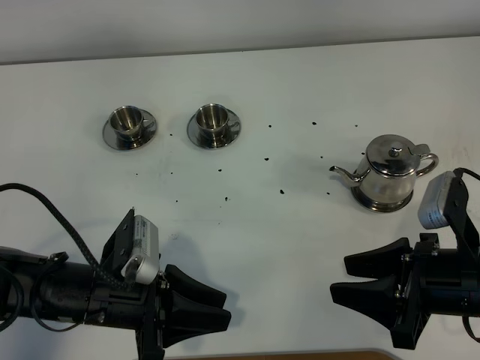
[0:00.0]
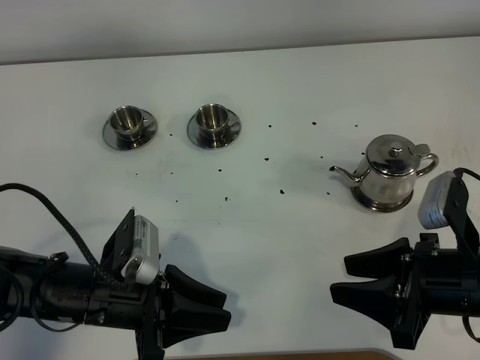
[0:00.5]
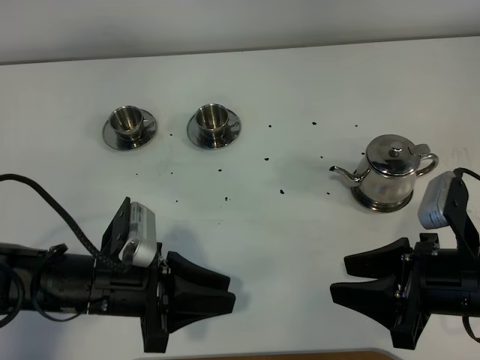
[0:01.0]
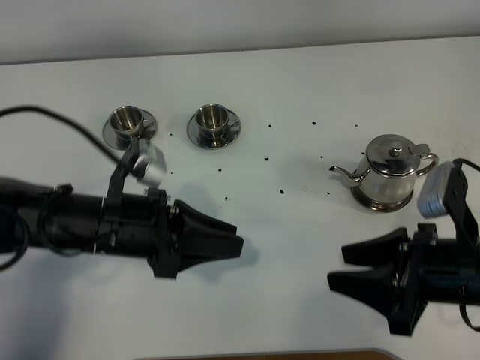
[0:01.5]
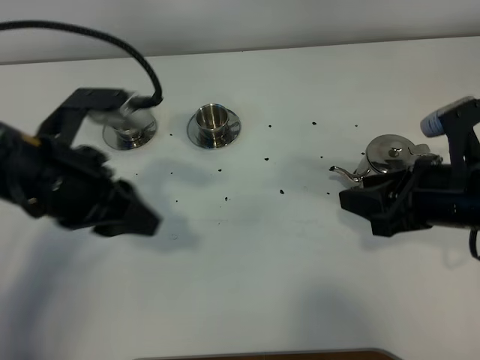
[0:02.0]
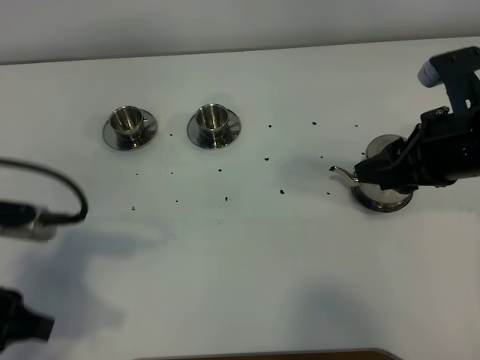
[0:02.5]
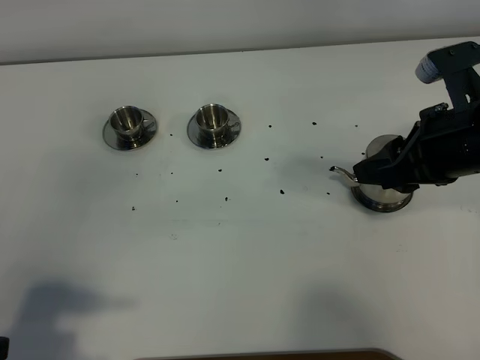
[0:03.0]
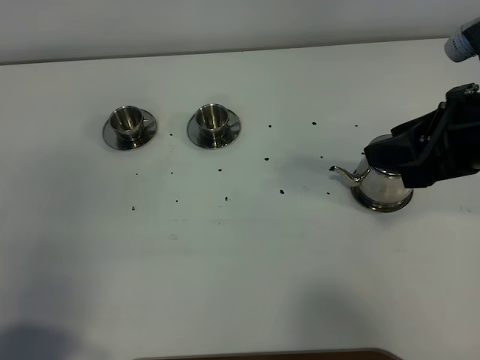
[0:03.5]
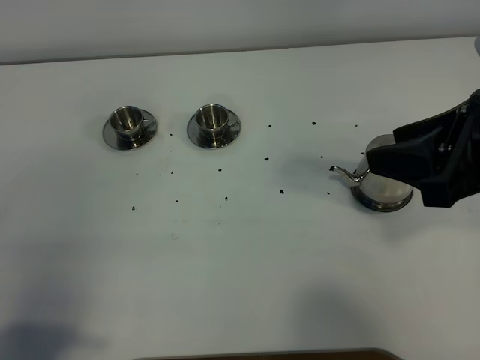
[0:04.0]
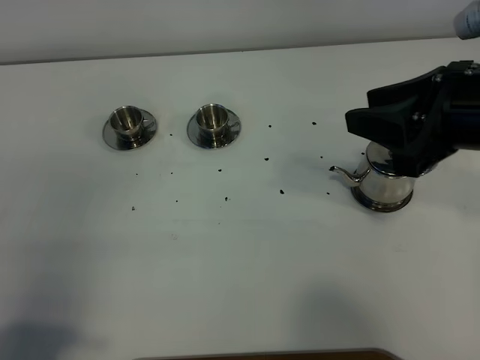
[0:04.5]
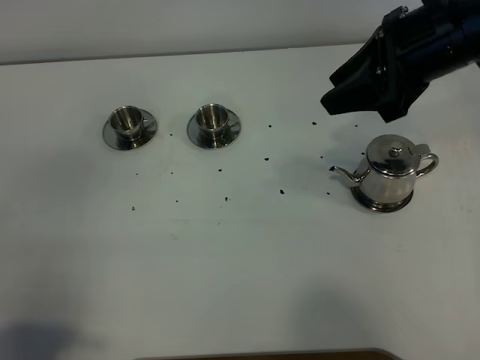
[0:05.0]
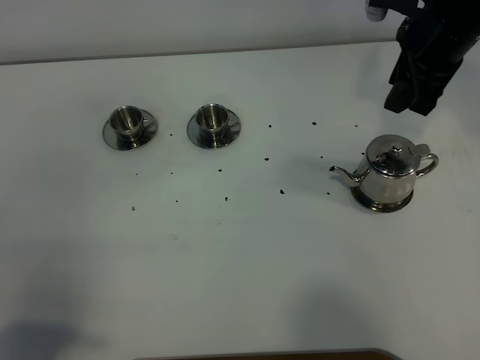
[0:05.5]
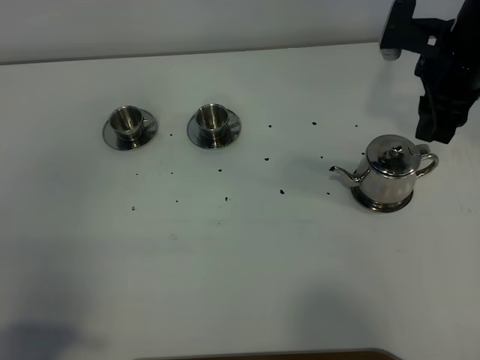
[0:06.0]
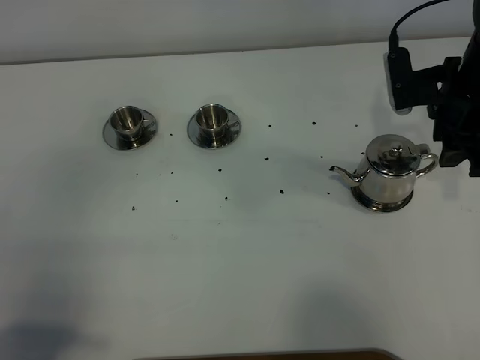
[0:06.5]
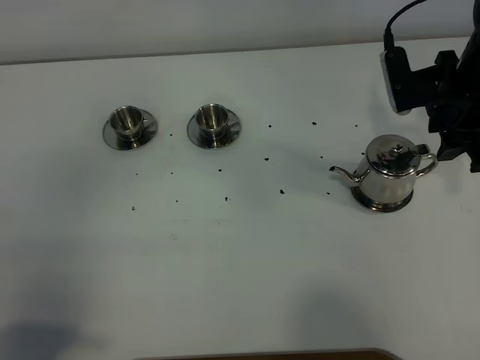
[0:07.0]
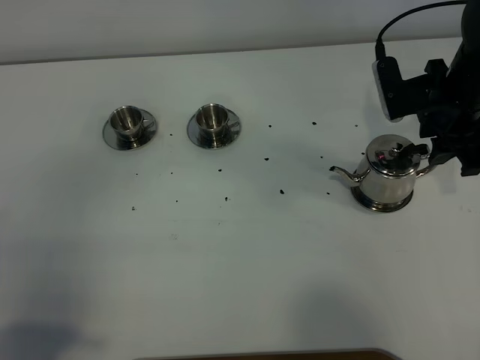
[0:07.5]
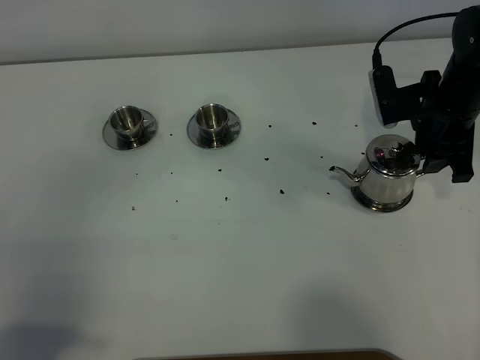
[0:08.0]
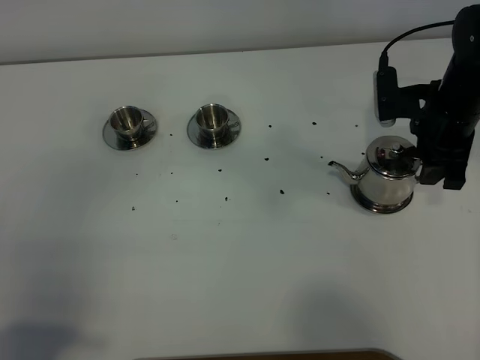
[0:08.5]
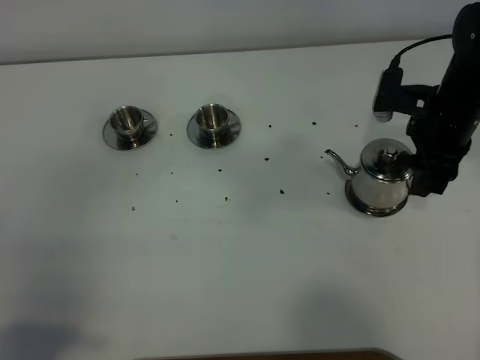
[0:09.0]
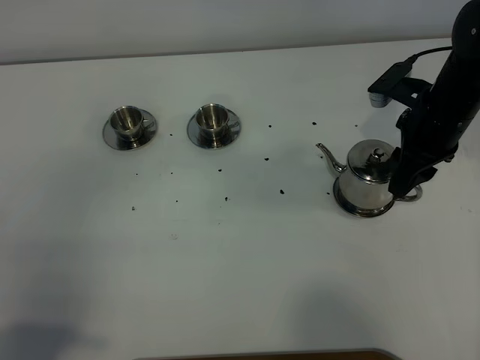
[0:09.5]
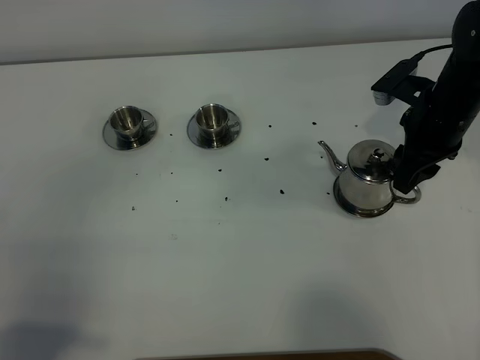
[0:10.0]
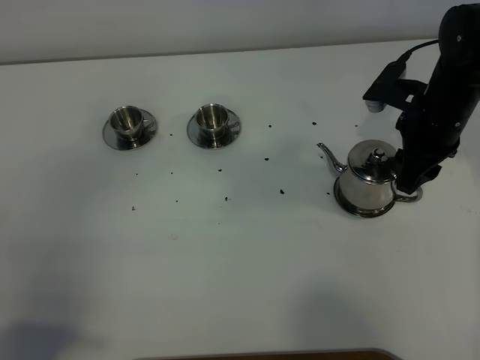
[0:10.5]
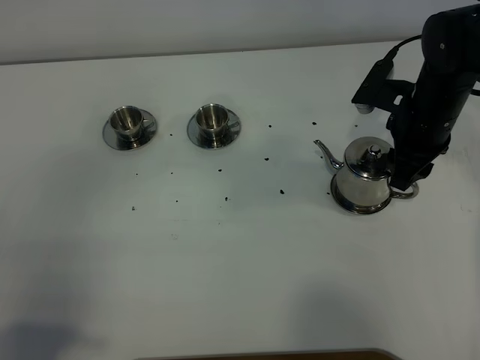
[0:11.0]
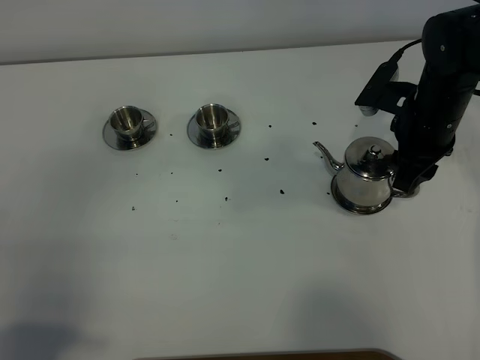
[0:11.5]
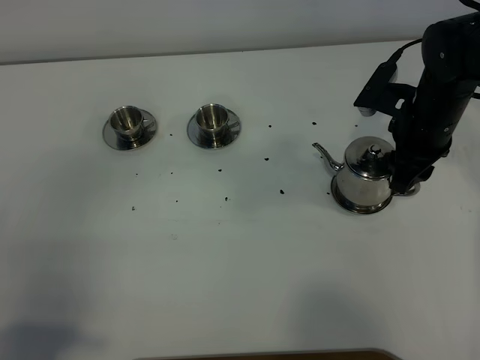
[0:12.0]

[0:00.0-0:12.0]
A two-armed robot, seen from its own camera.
Task of the whole recording: grasp the stainless steel teapot and pour the tea into the two stainless steel teacups one by one, put the stainless steel teapot back in its original place.
0:00.0 to 0:02.0: The left gripper shifts some 15 cm upward and forward, while the right gripper heads forward, covering about 10 cm.
0:02.0 to 0:04.0: The right gripper shifts roughly 10 cm upward, while the left gripper heads backward and to the left, covering approximately 25 cm.
0:04.0 to 0:06.0: The right gripper travels forward by approximately 20 cm.
0:06.0 to 0:08.0: The right gripper moves downward, about 5 cm.
0:10.0 to 0:12.0: There are only small adjustments of the grippers.

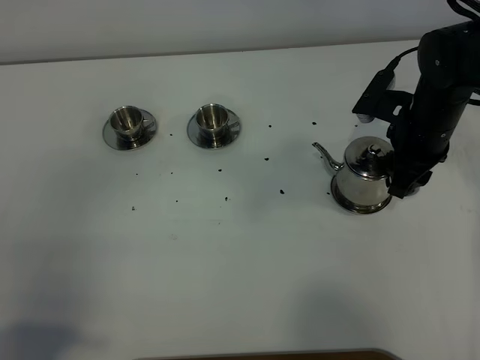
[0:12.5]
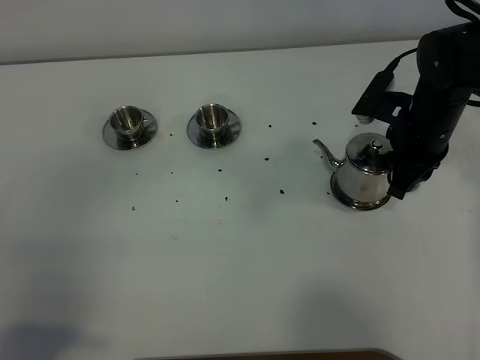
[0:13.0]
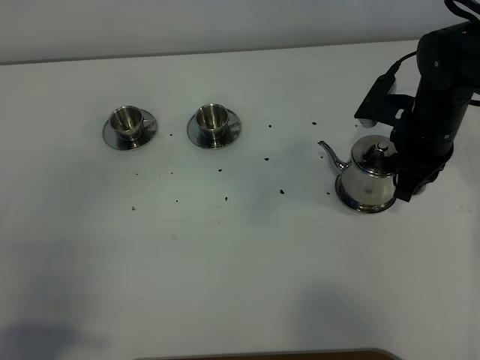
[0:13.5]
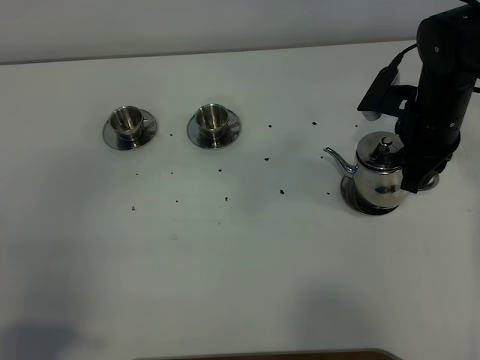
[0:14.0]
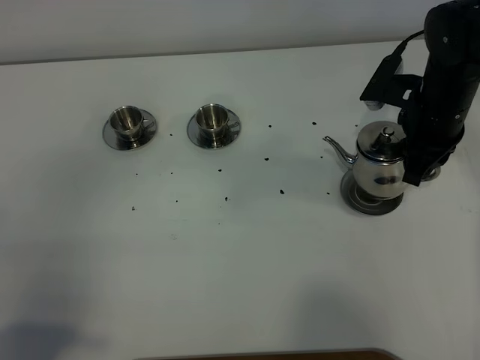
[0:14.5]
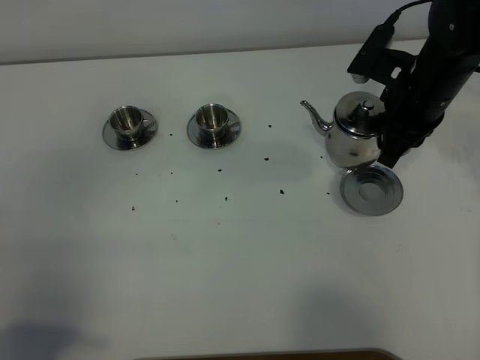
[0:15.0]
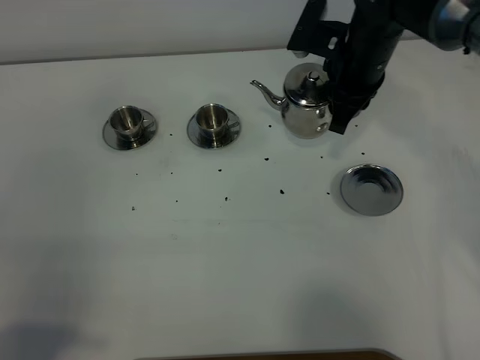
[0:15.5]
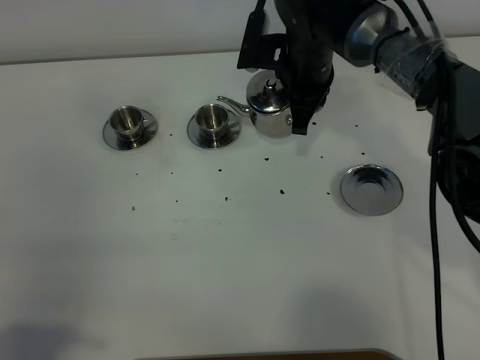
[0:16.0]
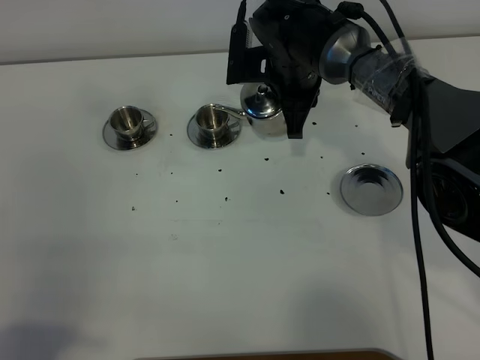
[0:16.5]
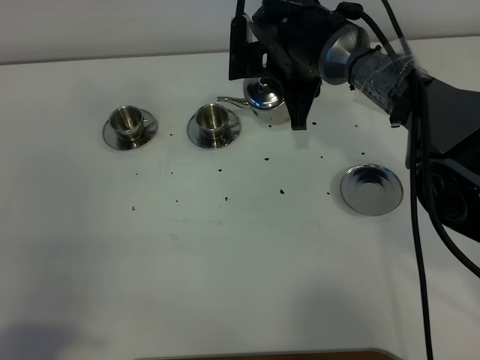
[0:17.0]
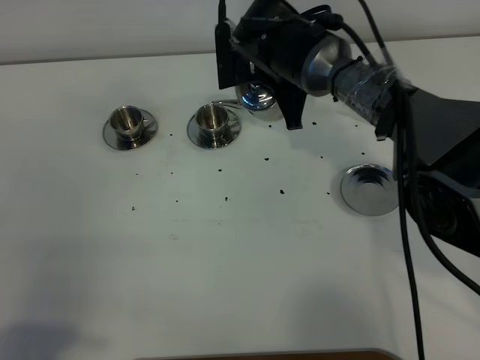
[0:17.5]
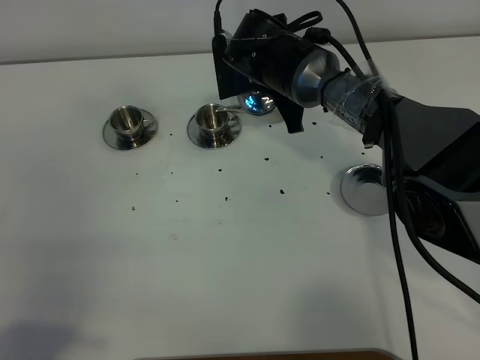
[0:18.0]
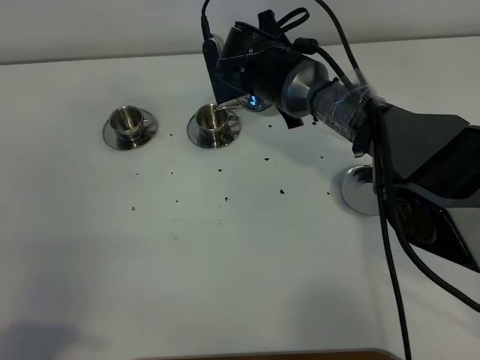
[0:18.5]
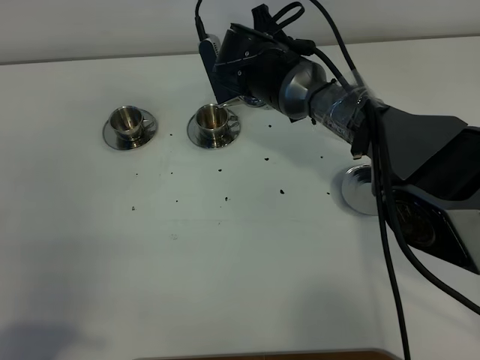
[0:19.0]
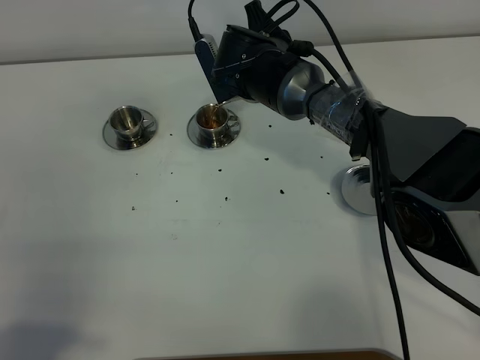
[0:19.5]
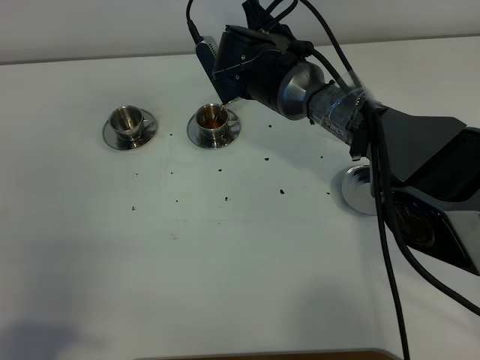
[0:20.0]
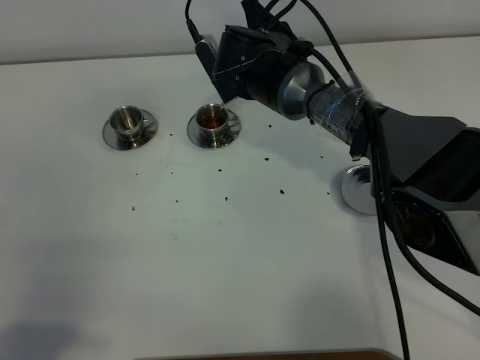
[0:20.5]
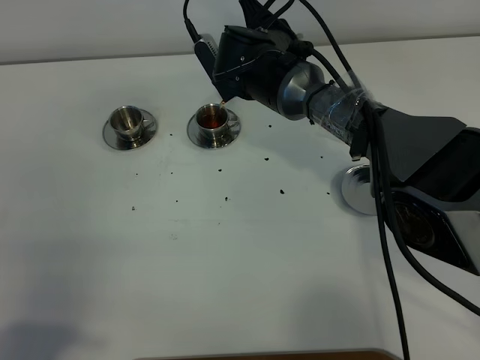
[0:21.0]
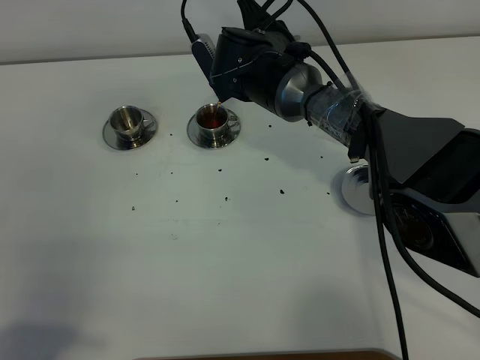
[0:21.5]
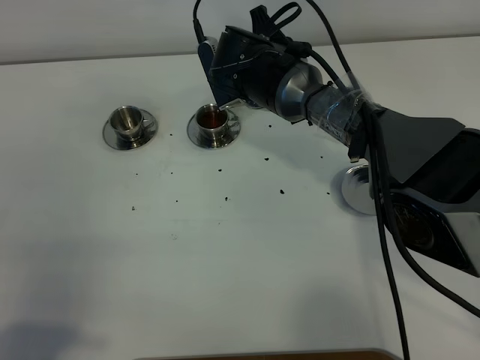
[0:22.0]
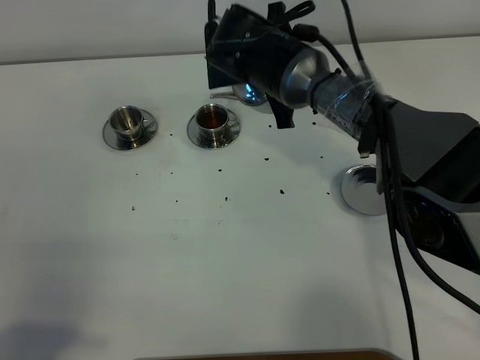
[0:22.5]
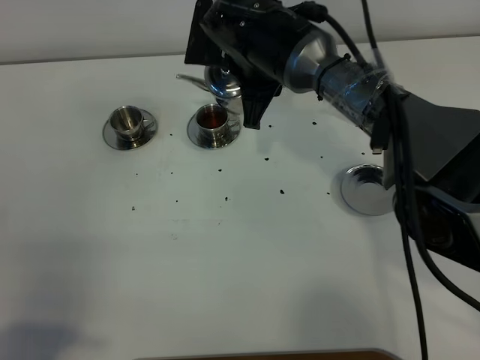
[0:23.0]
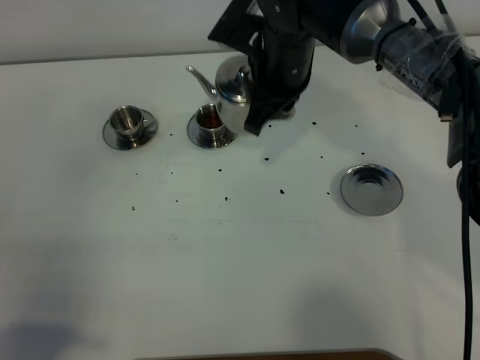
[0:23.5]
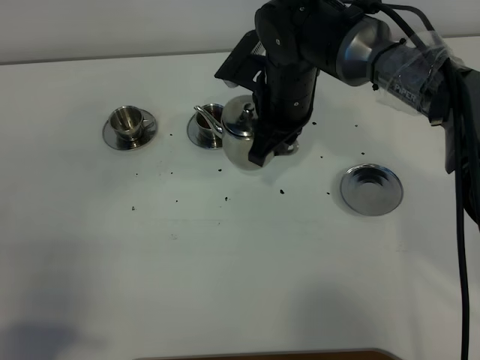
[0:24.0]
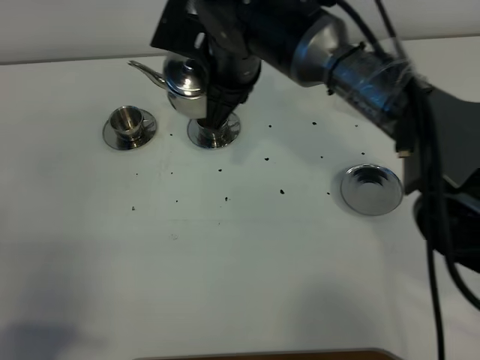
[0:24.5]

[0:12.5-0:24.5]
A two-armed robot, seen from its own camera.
Task of the whole recording: grasp the stainless steel teapot and pour the tea into the two stainless steel teacups one by one, put the stainless steel teapot back in its original place.
0:12.5 to 0:14.5: The right gripper closes.
0:14.5 to 0:16.5: The right gripper heads to the left, covering about 20 cm.
0:18.5 to 0:20.5: There are only small adjustments of the grippers.
0:22.5 to 0:24.5: The right gripper changes place by some 5 cm.

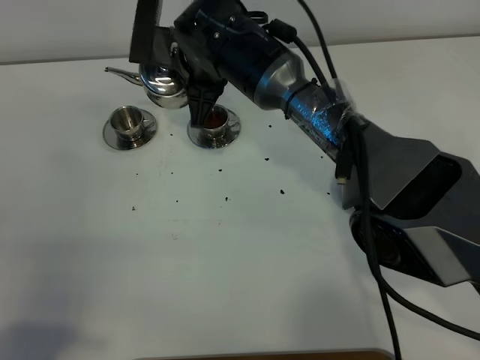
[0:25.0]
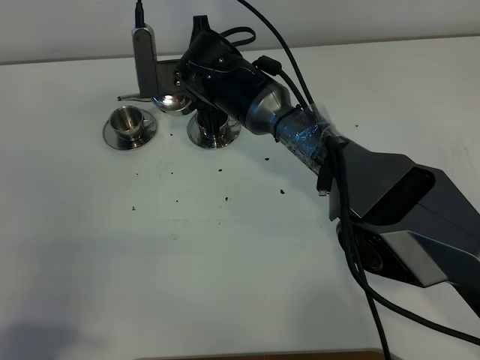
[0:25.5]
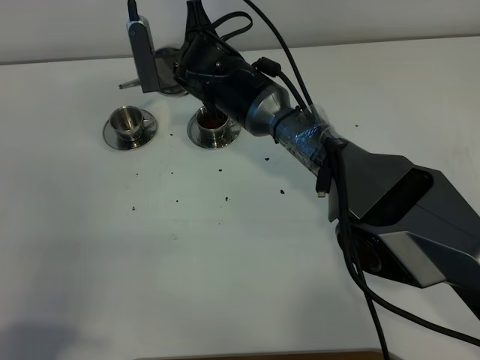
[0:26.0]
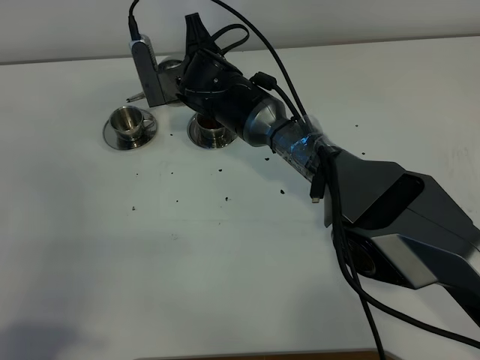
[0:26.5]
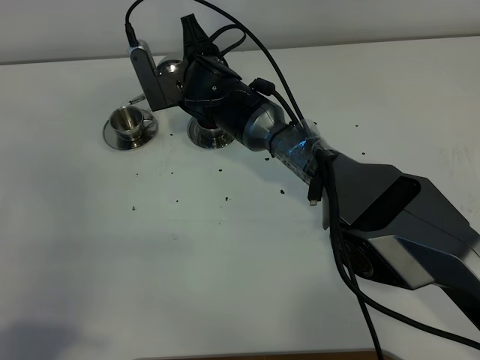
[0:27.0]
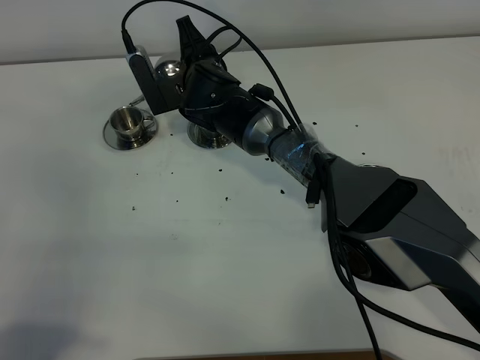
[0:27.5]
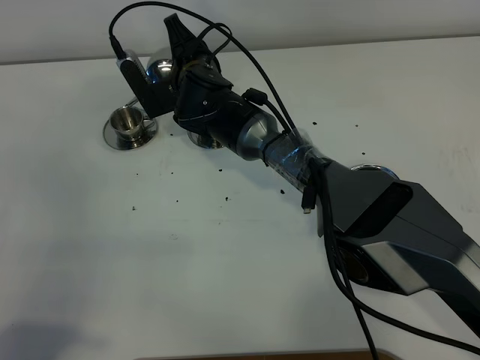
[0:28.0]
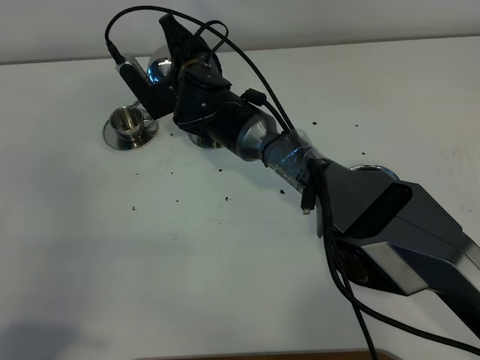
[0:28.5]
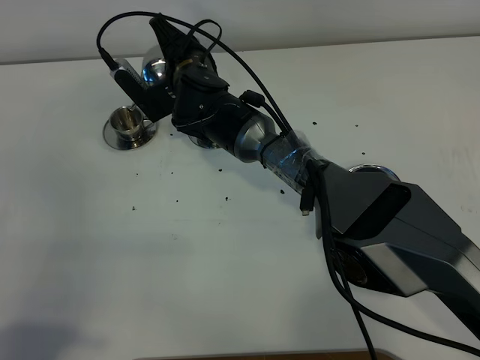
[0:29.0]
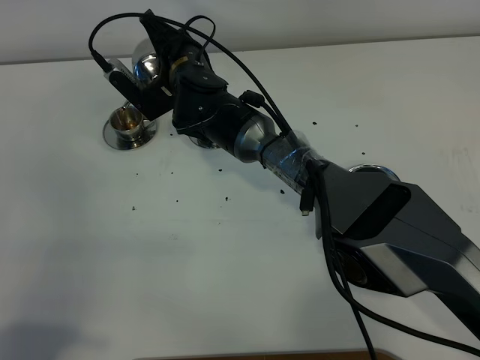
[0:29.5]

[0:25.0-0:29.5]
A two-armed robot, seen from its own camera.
Task of the whole recording: grasp the stainless steel teapot and pour the tea into the two stainless steel teacups one by one, put the stainless steel teapot back in its original place.
0:25.0 to 0:27.0: The right gripper travels downward by approximately 5 cm.
